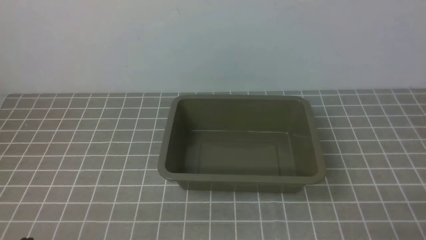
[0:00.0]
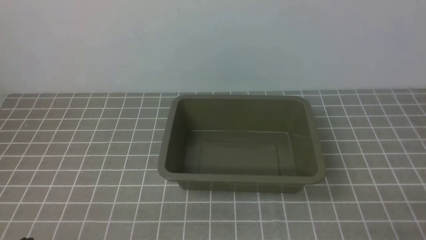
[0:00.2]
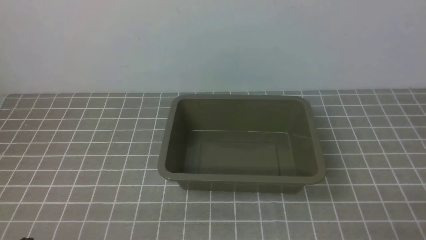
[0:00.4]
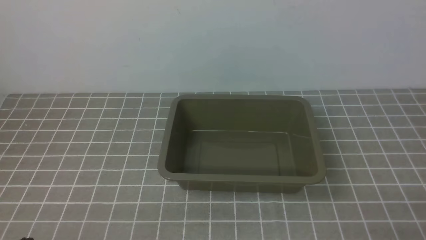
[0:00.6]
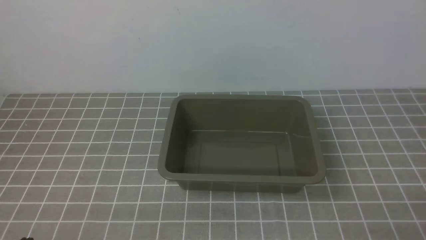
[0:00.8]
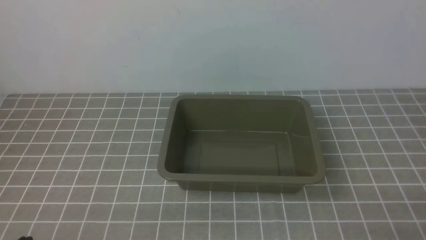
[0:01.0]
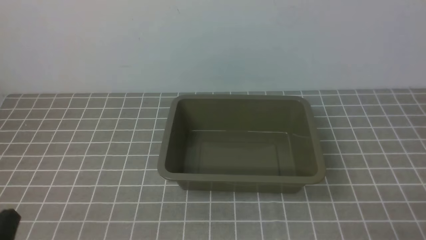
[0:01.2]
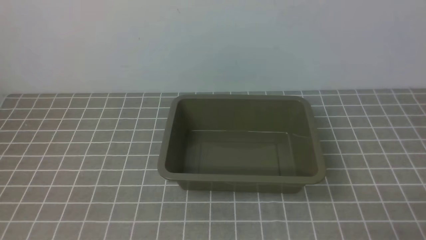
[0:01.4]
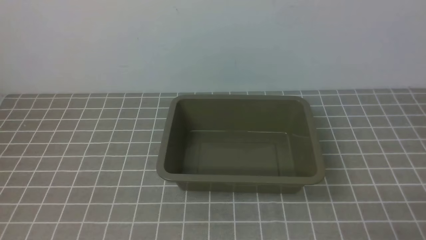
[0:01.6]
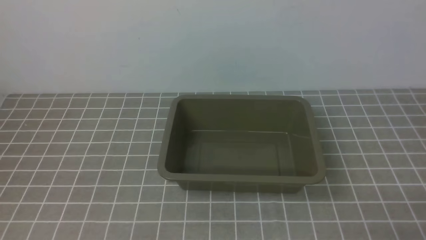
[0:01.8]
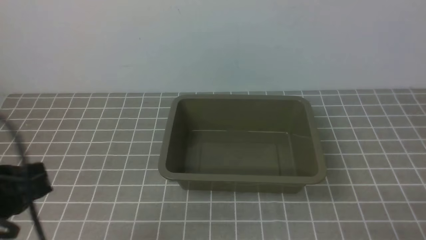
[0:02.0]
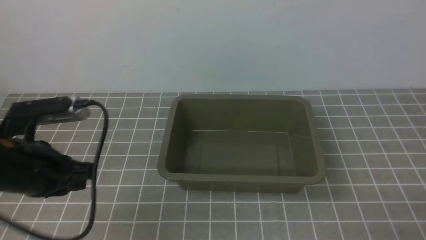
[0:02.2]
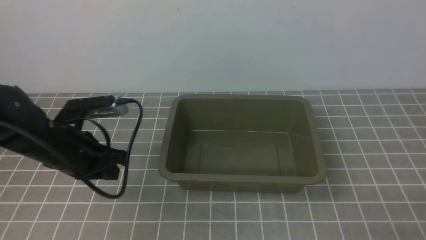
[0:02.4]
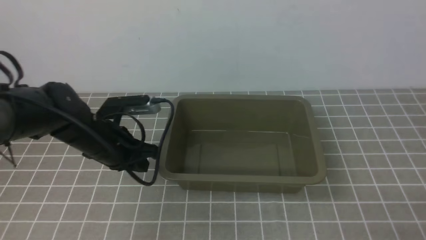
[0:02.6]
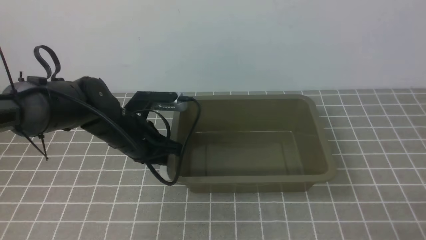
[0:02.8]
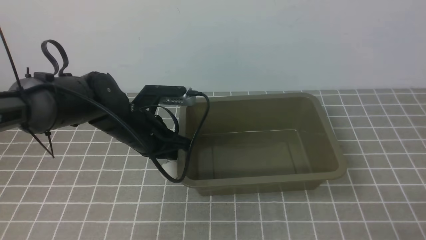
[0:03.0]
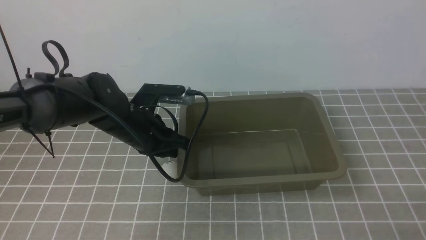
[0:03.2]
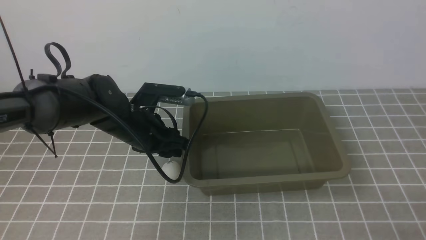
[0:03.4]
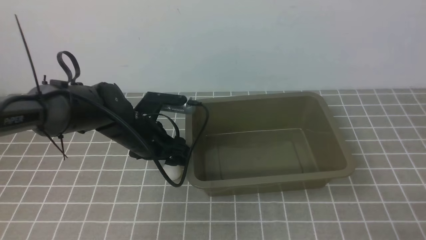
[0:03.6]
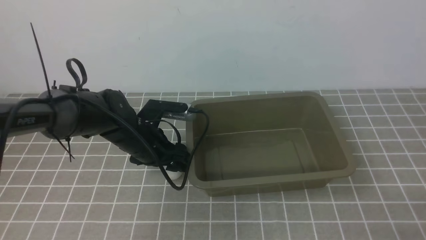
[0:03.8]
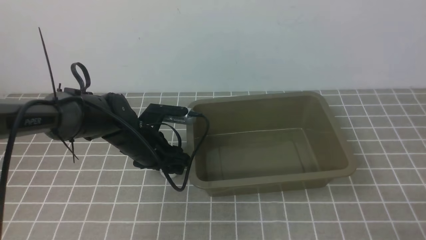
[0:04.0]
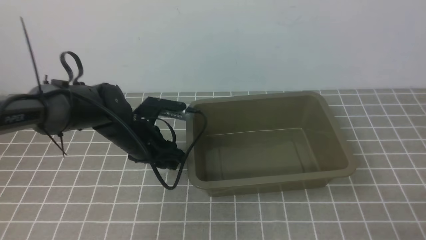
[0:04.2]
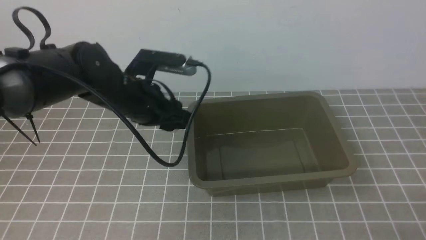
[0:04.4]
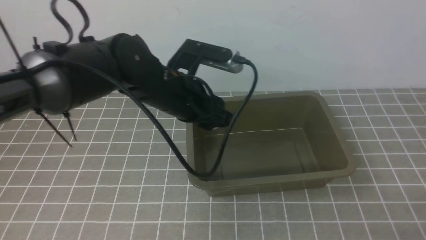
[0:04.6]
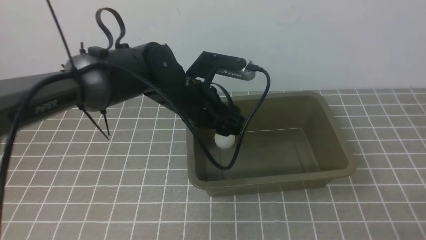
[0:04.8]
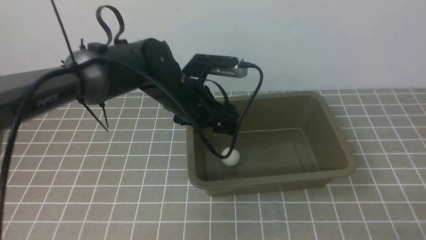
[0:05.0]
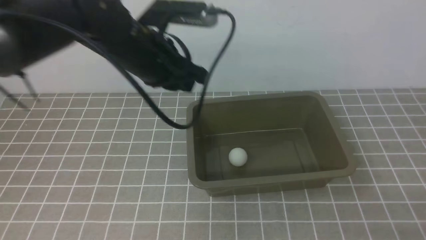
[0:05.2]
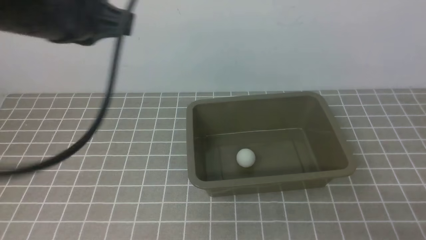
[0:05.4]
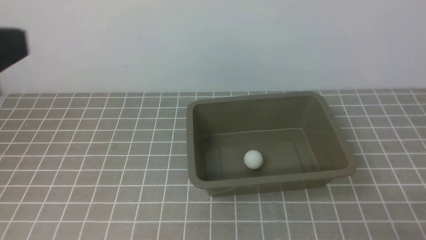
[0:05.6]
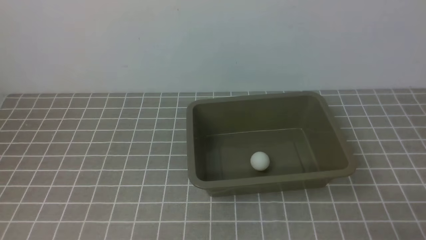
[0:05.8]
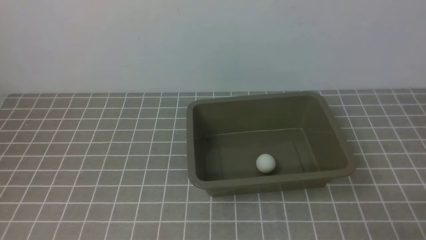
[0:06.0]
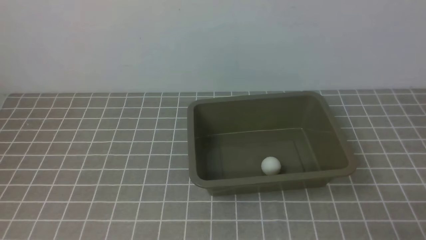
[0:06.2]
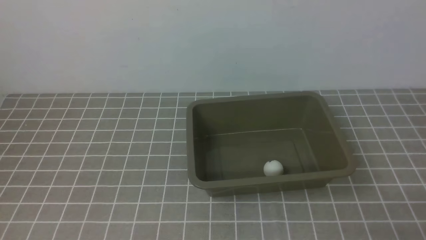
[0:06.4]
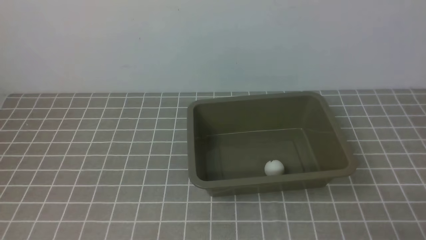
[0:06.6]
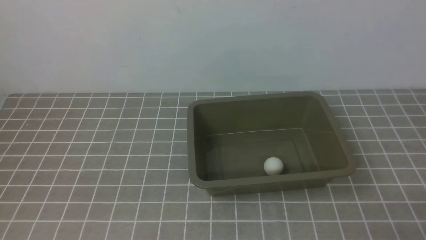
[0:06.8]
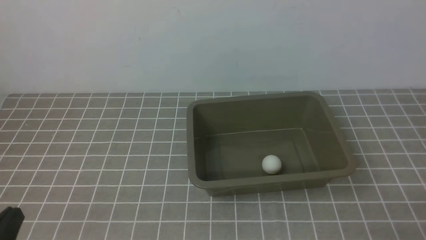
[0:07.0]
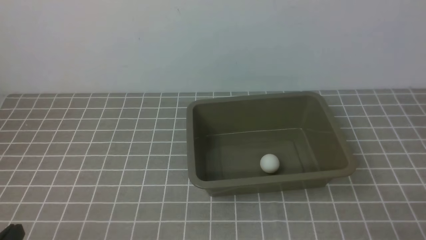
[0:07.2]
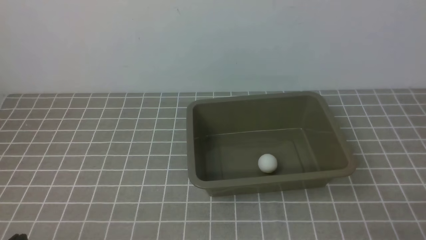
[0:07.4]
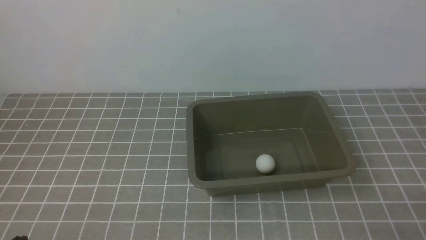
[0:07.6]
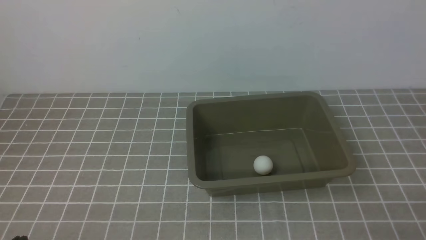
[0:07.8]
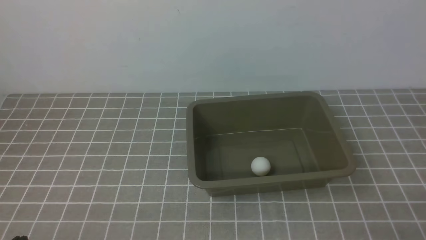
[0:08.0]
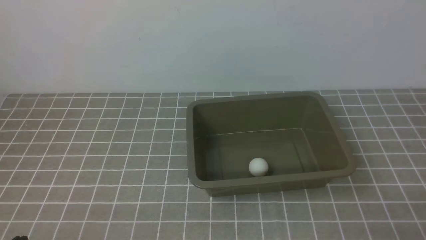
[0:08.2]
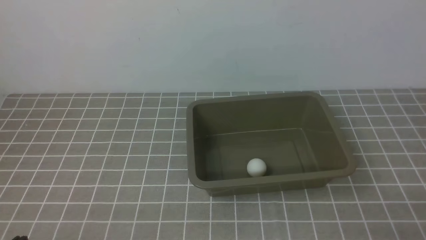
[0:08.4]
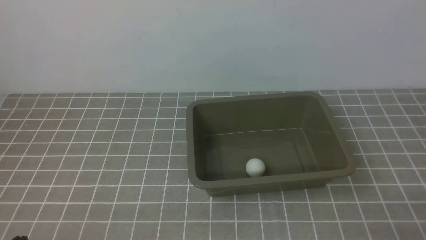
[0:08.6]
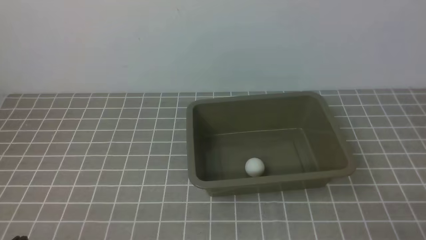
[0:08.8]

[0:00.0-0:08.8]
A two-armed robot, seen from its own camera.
Step, 0:00.0 to 0:04.2: use the left arm to clamp the table tennis ball closest to it.
Step, 0:04.4 to 0:05.2: use the left arm to put the table tennis ball into the box.
0:01.4 to 0:03.0: The left gripper goes roughly 30 cm forward and to the right.
0:03.0 to 0:04.4: The left gripper opens its fingers.
0:04.4 to 0:05.8: The left gripper shifts some 35 cm backward, upward and to the left, and closes.
0:07.4 to 0:08.8: Both grippers stay about where they are.

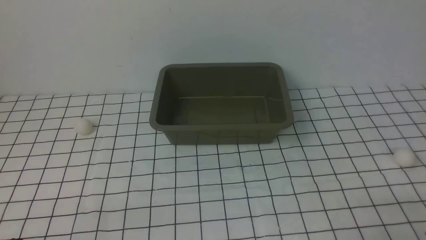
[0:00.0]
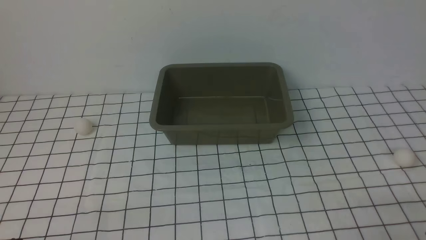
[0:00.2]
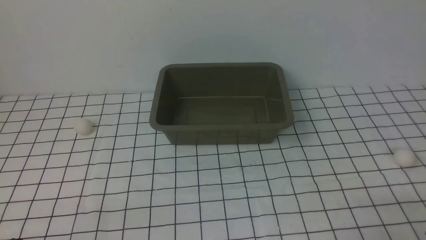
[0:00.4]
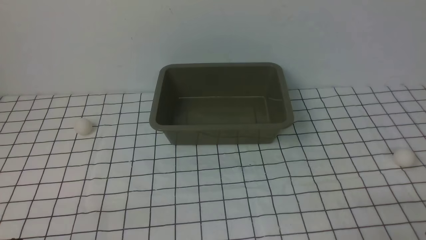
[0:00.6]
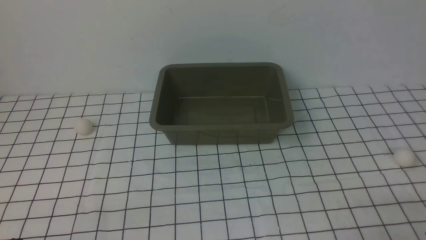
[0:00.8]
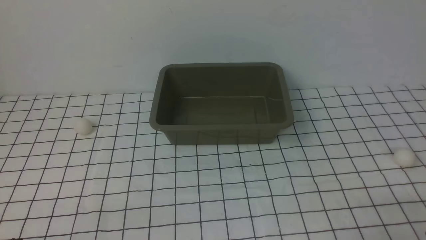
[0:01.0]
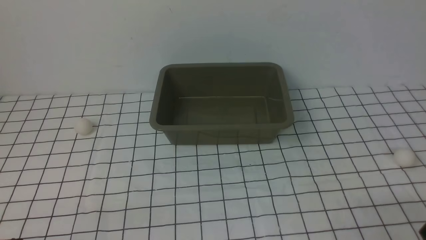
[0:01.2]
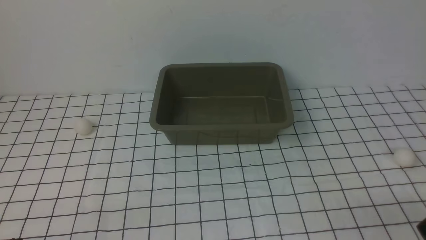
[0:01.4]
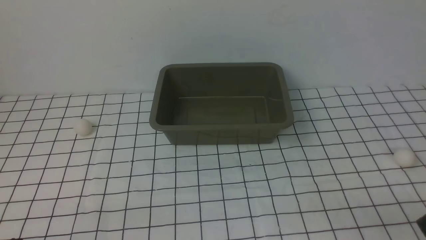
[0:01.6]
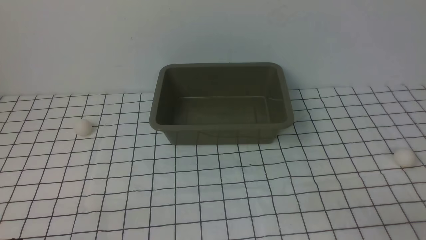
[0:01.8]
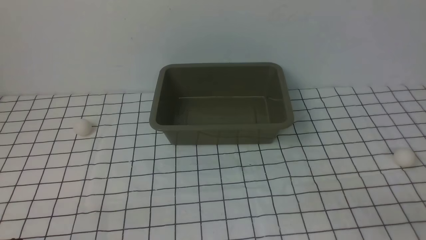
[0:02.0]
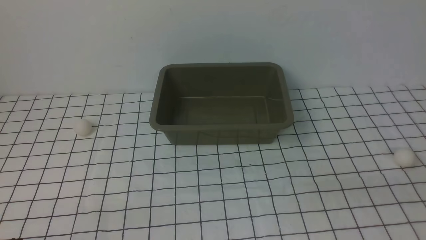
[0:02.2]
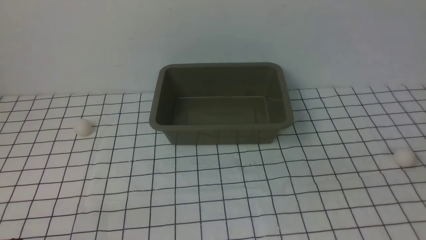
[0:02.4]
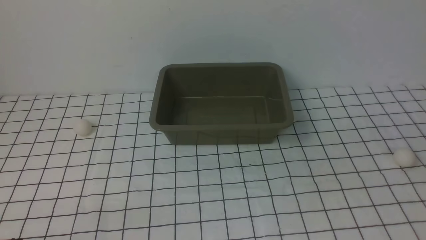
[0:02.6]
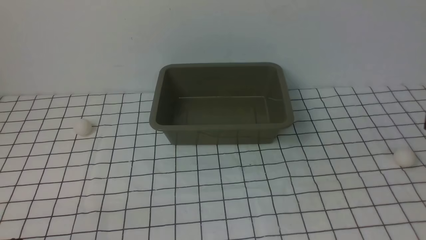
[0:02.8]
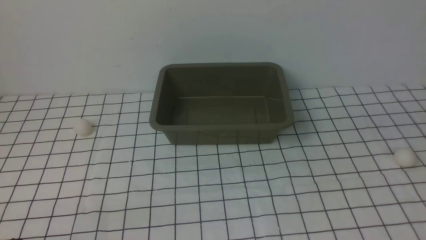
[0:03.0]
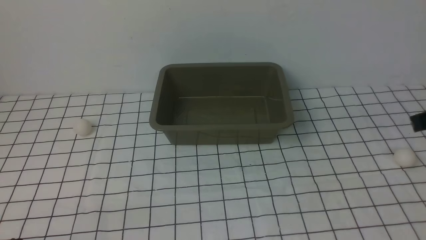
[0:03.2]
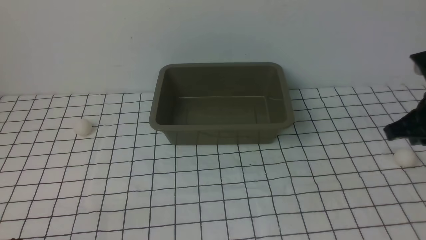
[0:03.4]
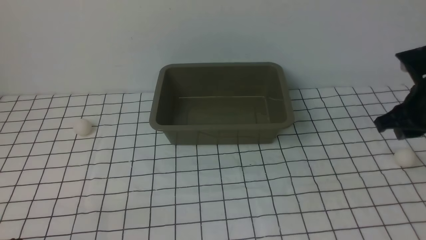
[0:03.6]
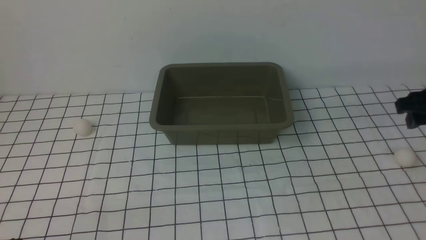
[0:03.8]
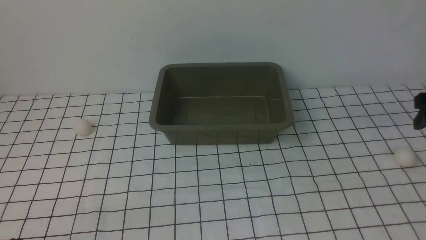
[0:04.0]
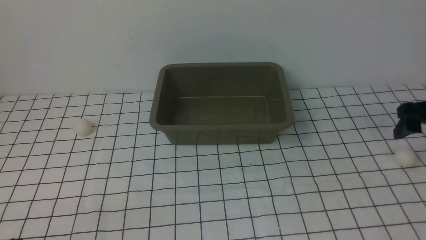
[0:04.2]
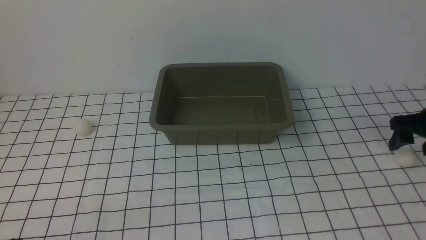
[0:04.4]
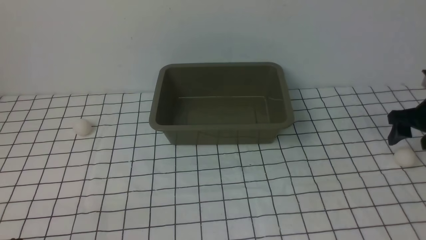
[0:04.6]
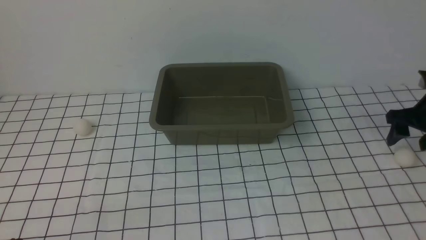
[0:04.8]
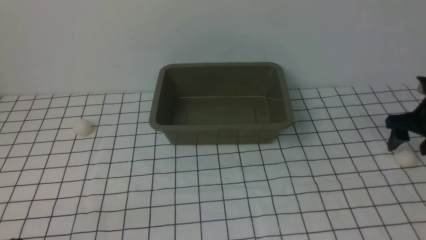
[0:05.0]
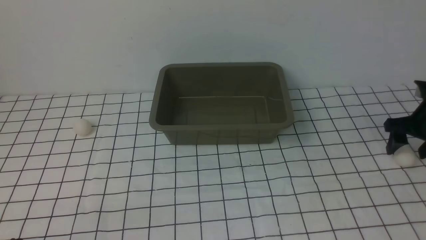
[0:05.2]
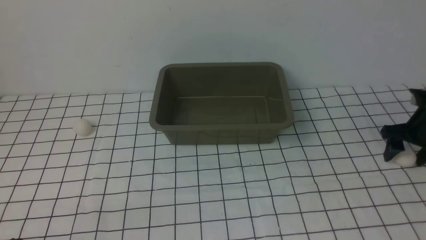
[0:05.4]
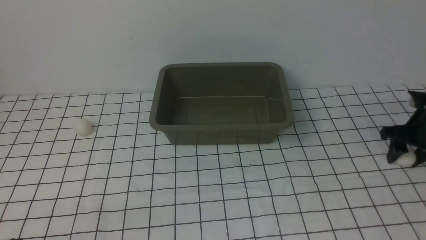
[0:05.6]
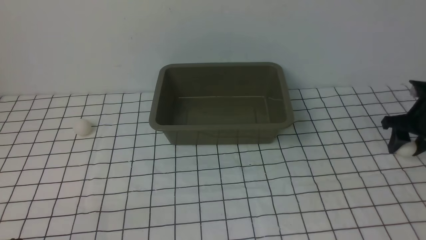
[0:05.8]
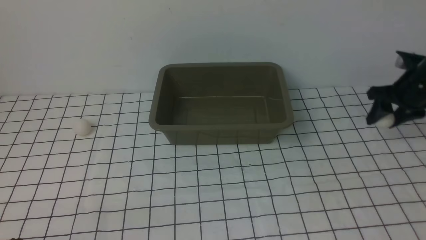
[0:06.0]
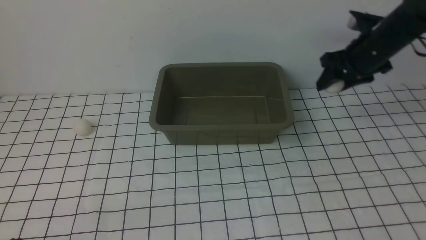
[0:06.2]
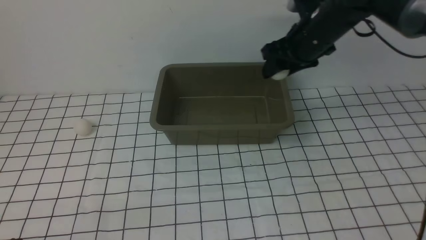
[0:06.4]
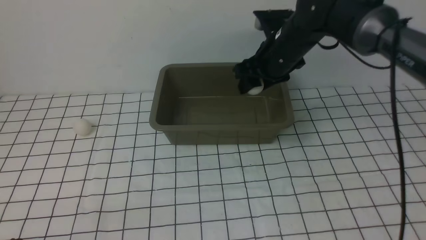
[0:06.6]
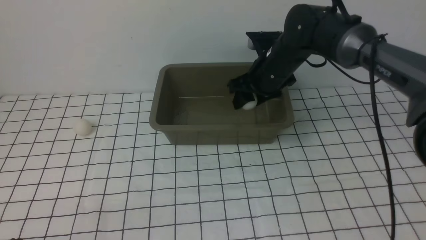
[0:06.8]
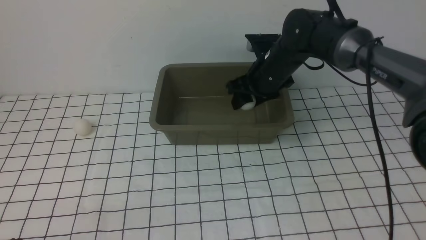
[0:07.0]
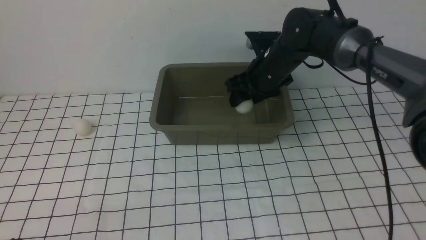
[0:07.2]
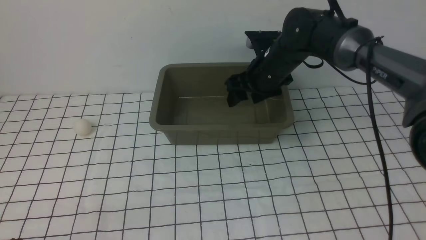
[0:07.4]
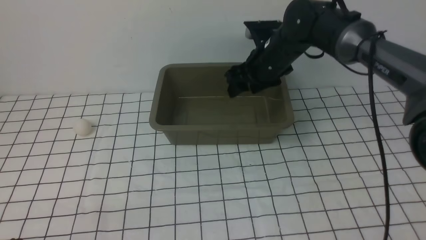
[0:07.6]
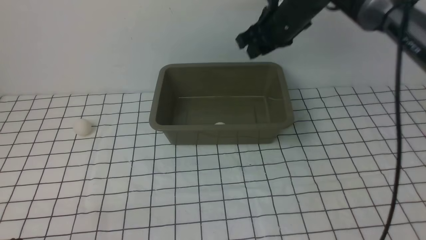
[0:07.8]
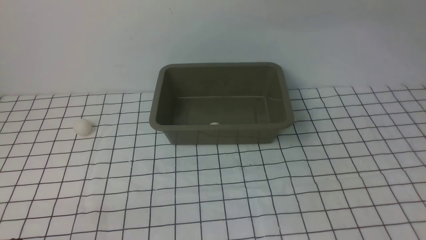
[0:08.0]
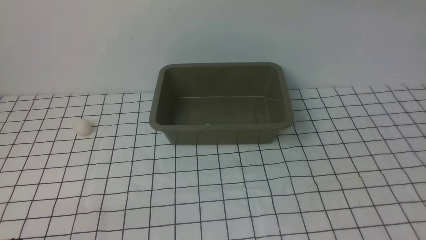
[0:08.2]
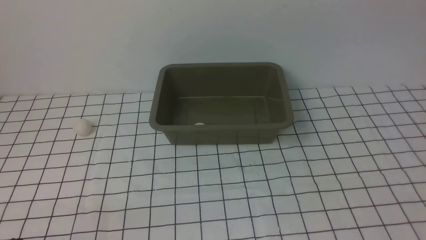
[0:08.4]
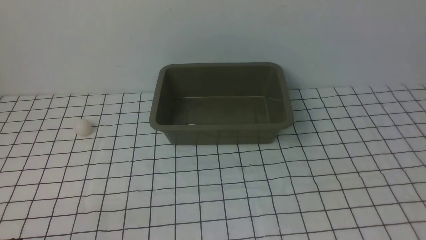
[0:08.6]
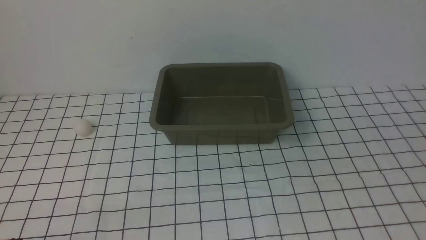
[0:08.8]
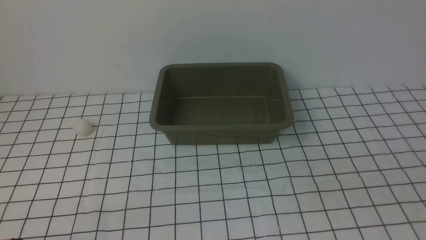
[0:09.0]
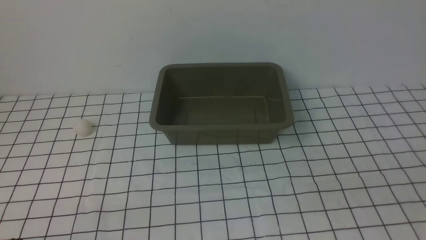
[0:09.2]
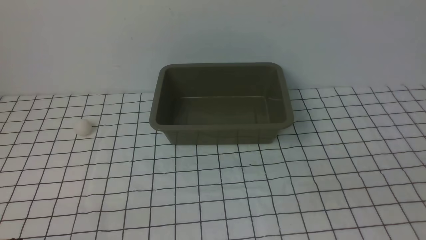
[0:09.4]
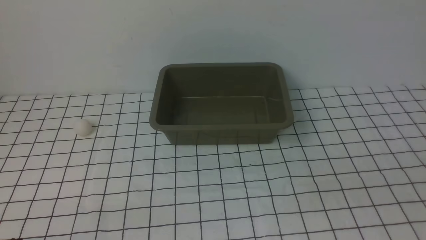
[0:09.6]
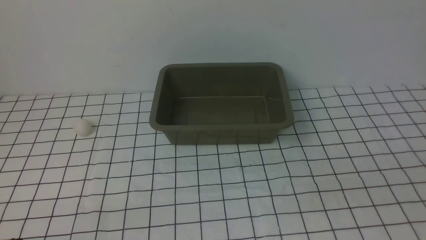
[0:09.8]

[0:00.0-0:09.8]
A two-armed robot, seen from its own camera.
Step, 0:00.0 to 0:05.8: use the right arm to clamp the table tennis ball closest to it.
Step, 0:06.0 to 0:07.8: use the right arm to put the table tennis ball into the box.
0:02.8 to 0:04.2: The right gripper goes some 30 cm forward, downward and to the right, and opens up.
0:04.2 to 0:05.6: The right gripper goes roughly 10 cm downward and forward.
0:05.6 to 0:07.0: The right gripper is displaced to the left by some 30 cm.
0:07.0 to 0:08.4: The right gripper moves upward, backward and to the right, about 40 cm, and closes its fingers.
